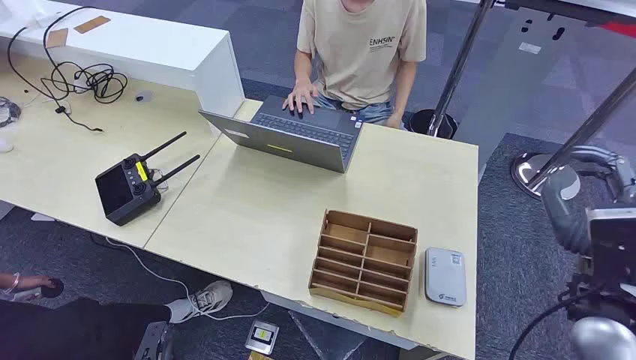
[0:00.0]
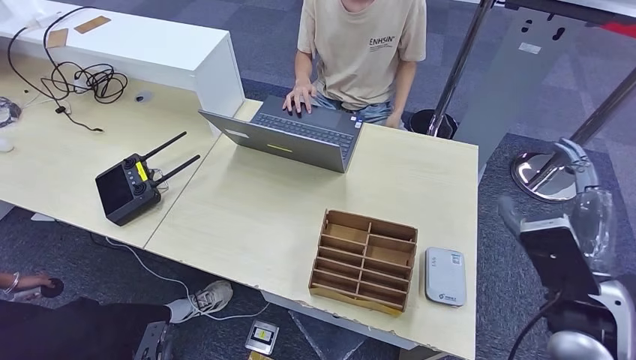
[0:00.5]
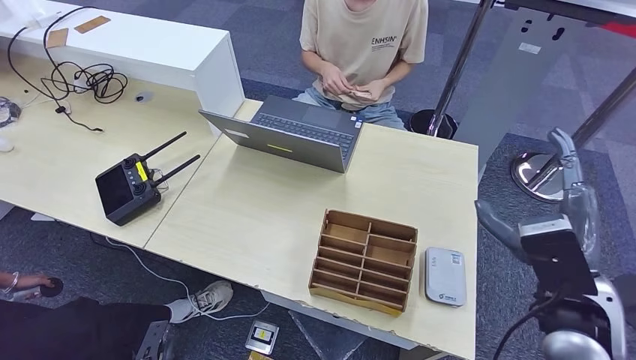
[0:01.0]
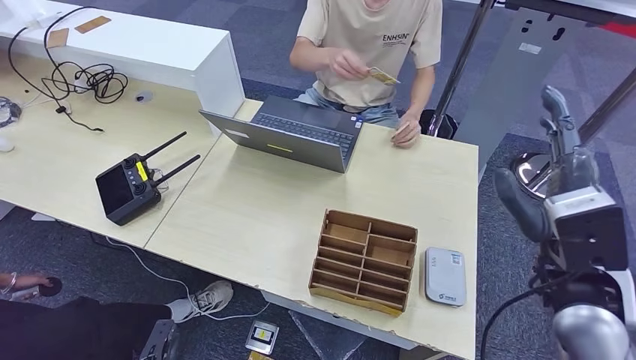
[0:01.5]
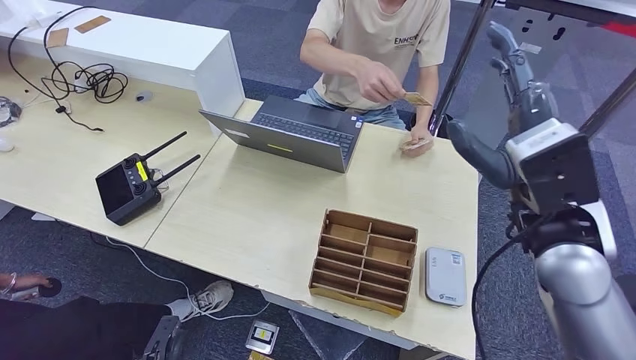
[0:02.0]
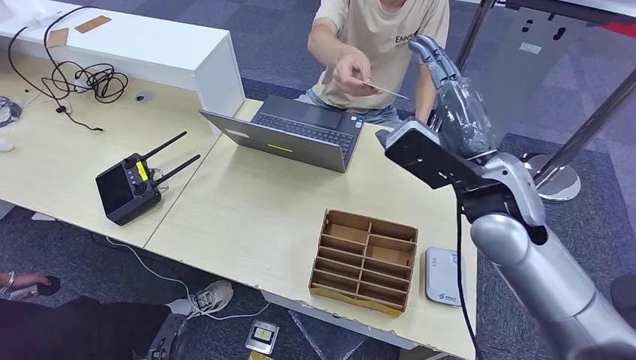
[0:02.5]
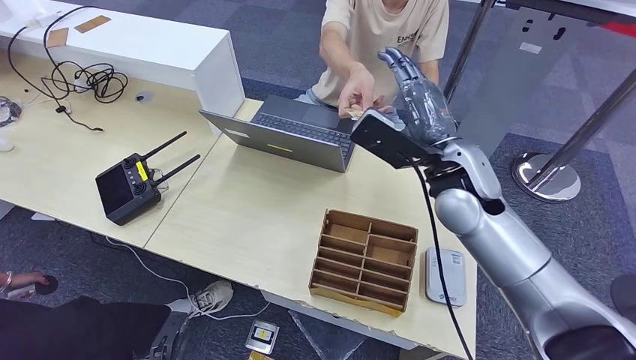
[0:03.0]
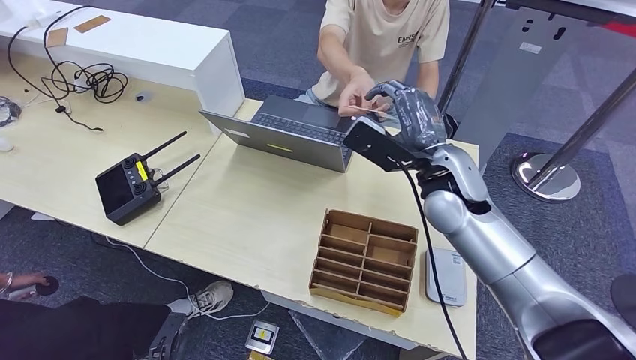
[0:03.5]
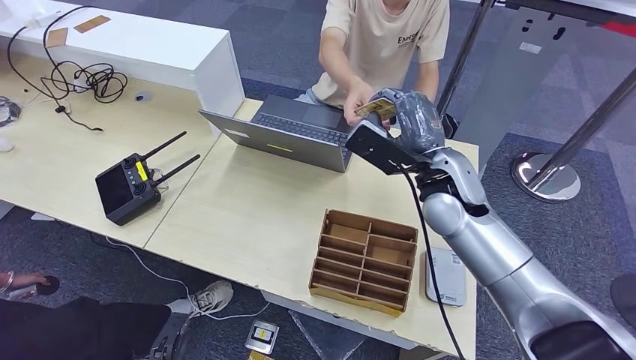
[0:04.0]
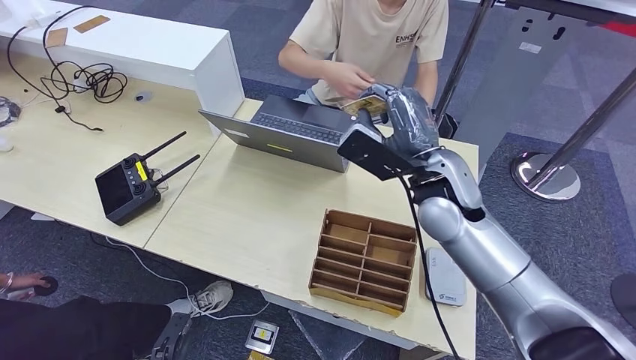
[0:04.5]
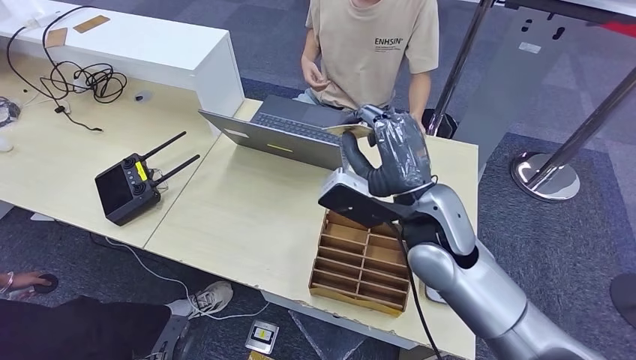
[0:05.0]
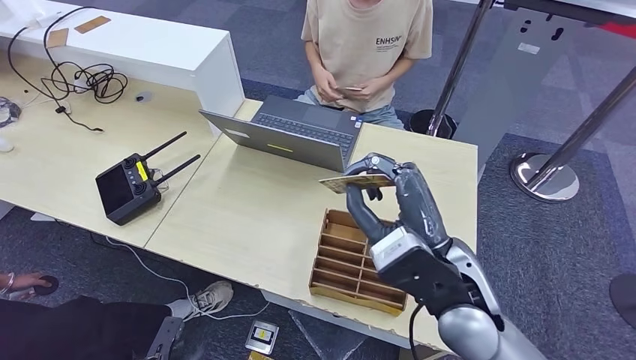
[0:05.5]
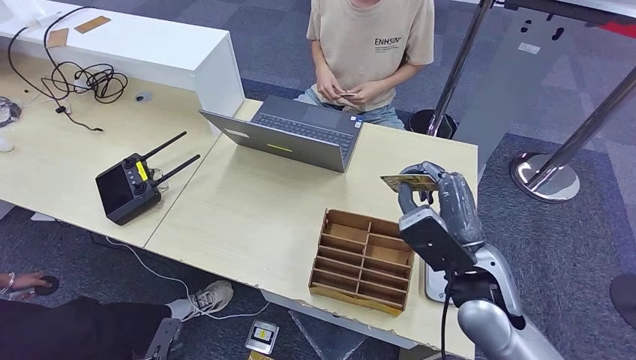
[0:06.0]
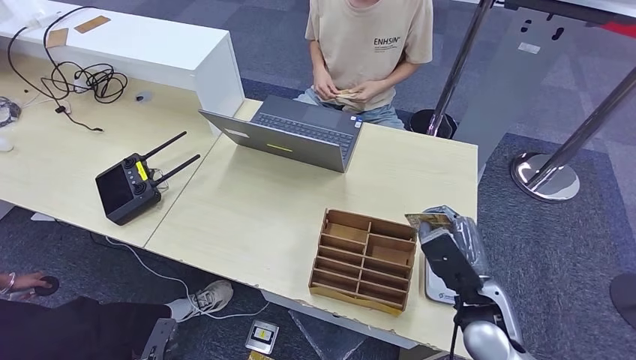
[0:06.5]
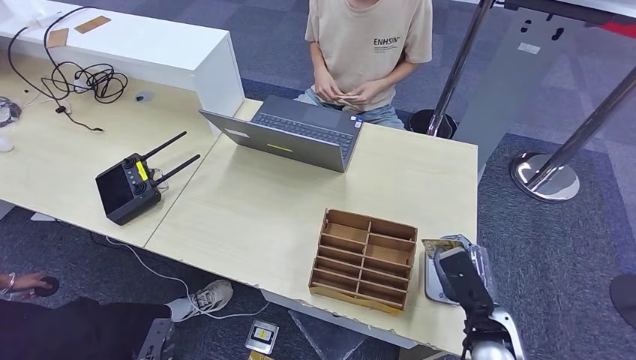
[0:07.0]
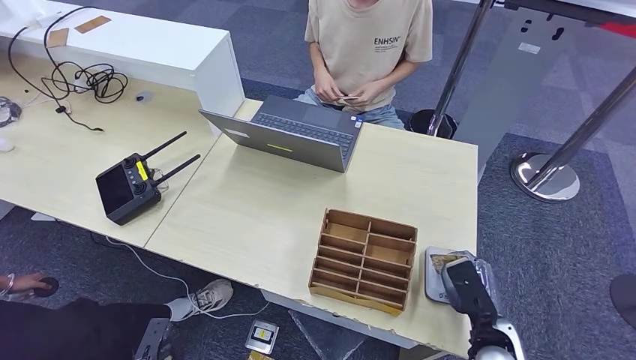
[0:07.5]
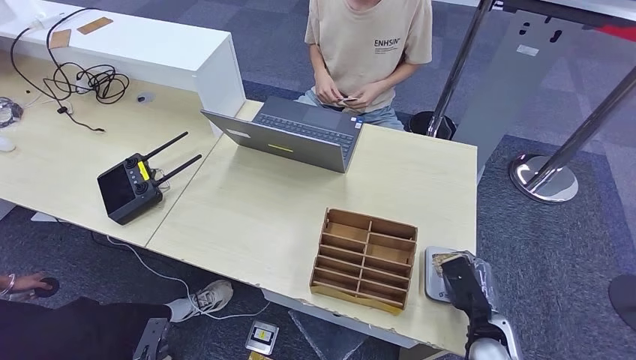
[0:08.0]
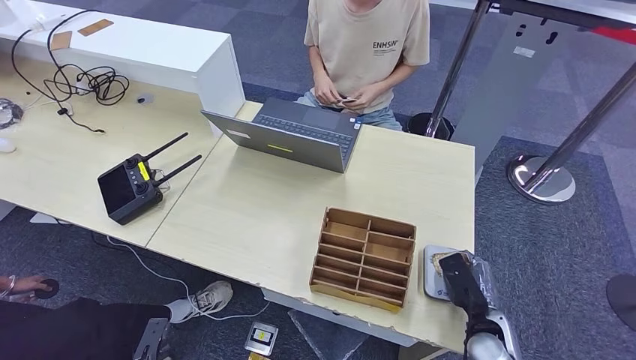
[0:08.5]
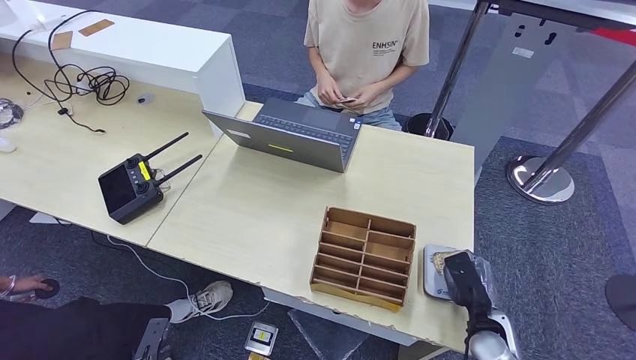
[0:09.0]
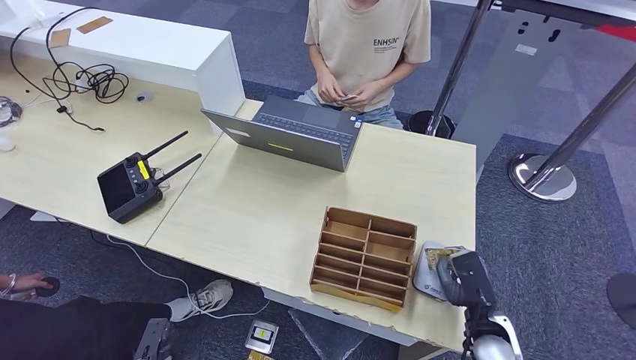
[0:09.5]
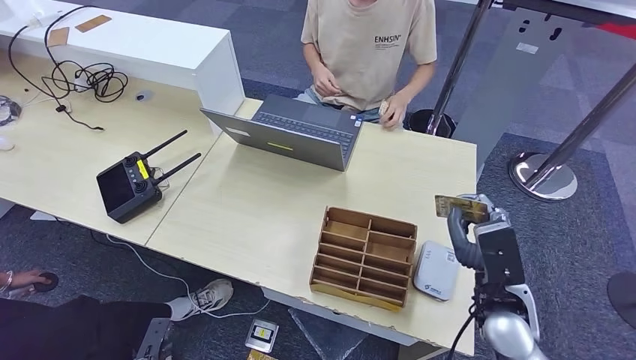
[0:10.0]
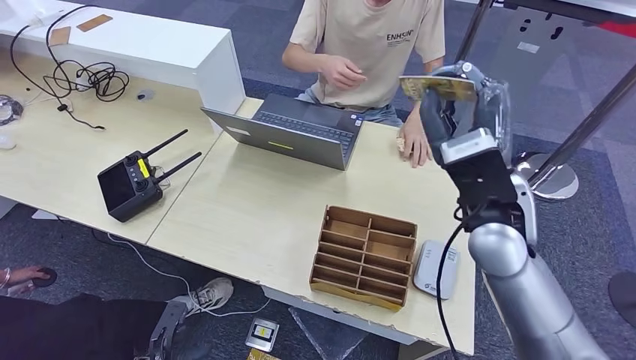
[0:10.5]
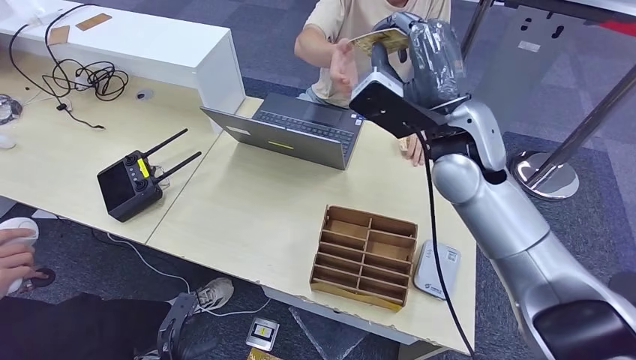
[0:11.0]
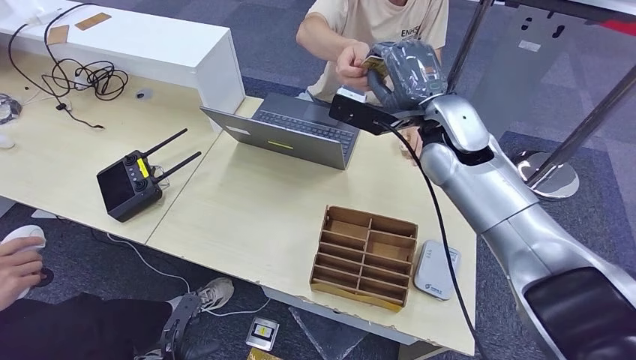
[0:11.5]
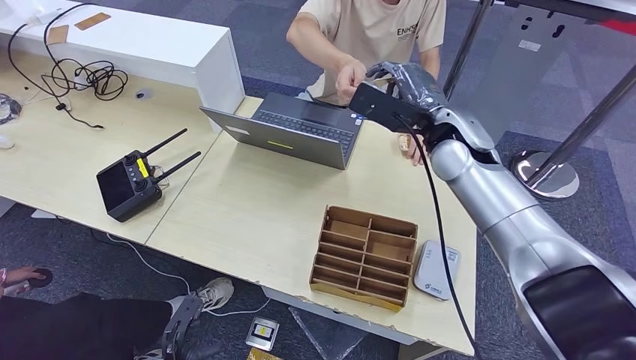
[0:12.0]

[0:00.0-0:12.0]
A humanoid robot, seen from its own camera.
Step, 0:00.0 to 0:04.5: Take the ID card from the person's hand.
Step, 0:05.0 to 0:08.5: Place the ID card on the card reader.
0:02.0 to 0:04.0: The right hand moves forward, to the left and downward, about 15 cm.
0:04.0 to 0:06.0: The right hand heads backward and downward, covering about 15 cm.
0:06.0 to 0:08.0: The right hand travels downward and to the right by roughly 25 cm.
0:08.0 to 0:10.0: The right hand moves upward, about 10 cm.

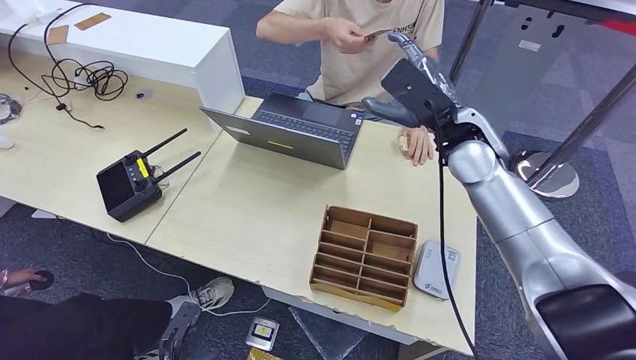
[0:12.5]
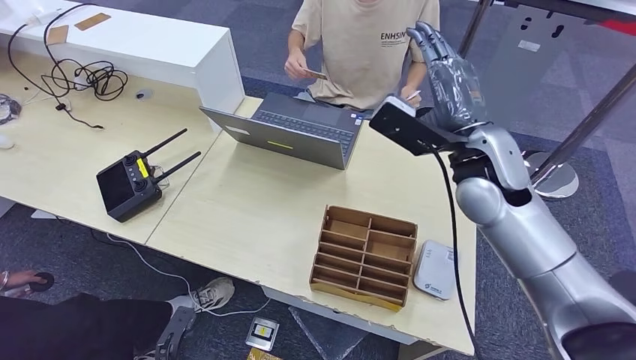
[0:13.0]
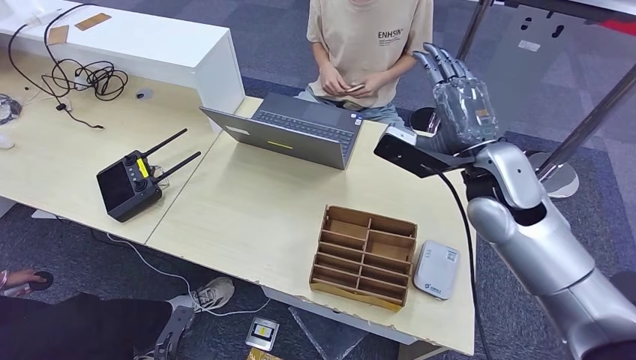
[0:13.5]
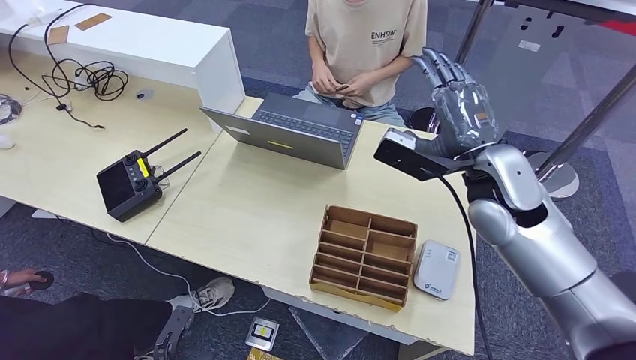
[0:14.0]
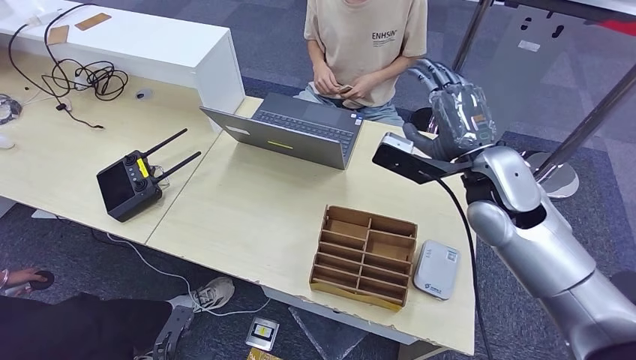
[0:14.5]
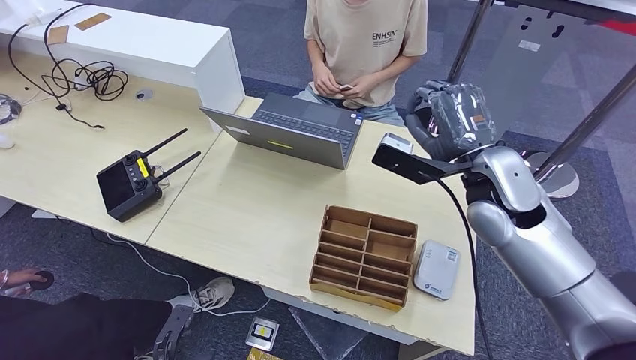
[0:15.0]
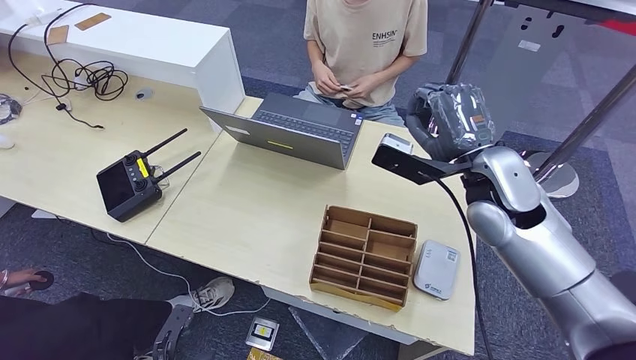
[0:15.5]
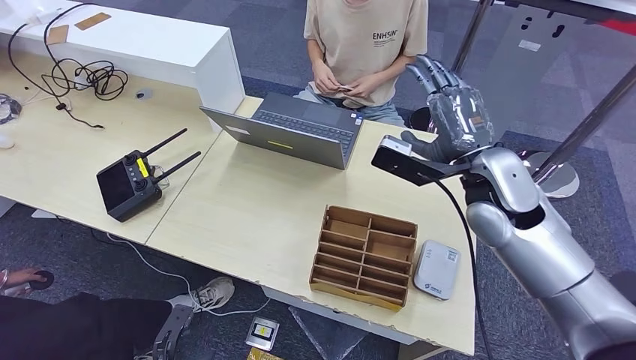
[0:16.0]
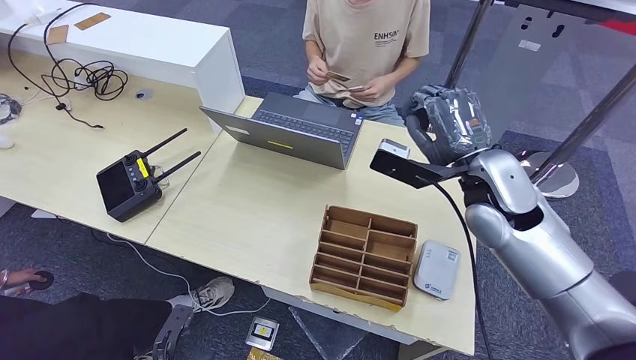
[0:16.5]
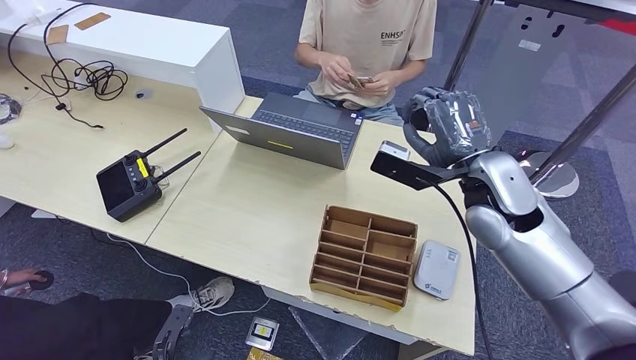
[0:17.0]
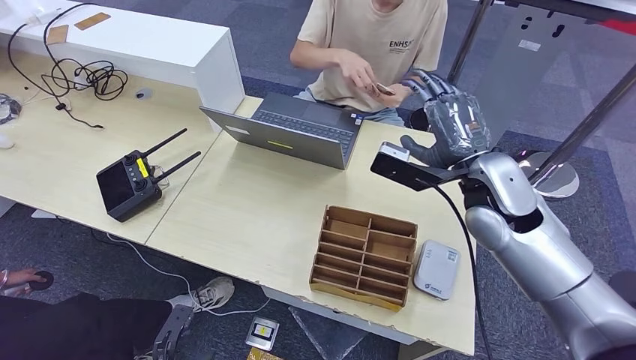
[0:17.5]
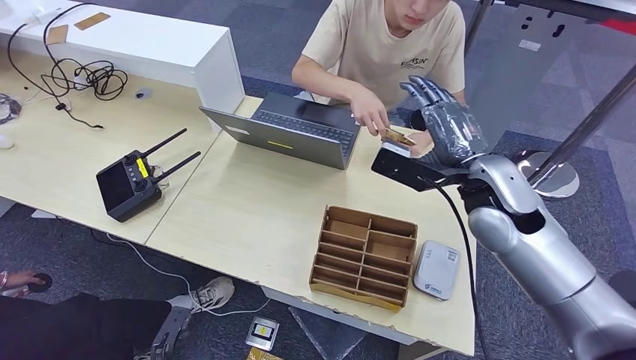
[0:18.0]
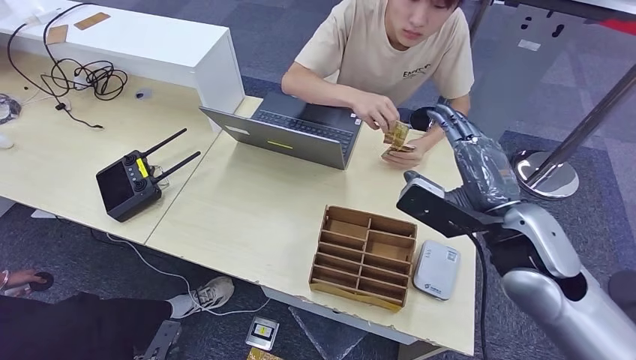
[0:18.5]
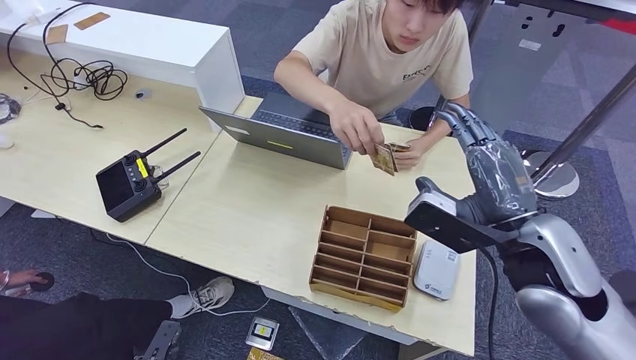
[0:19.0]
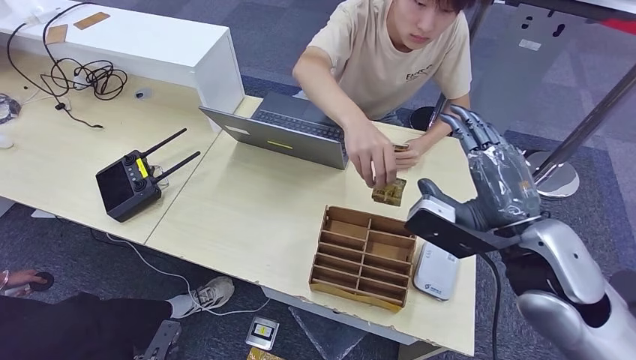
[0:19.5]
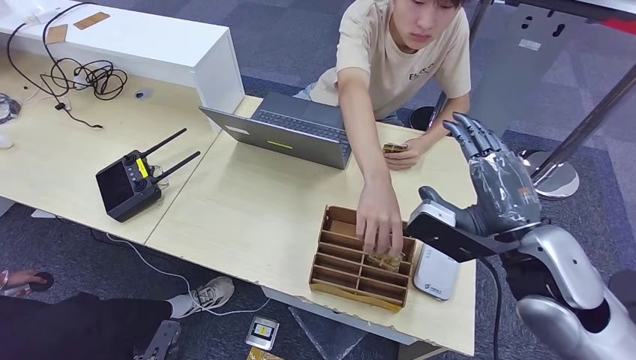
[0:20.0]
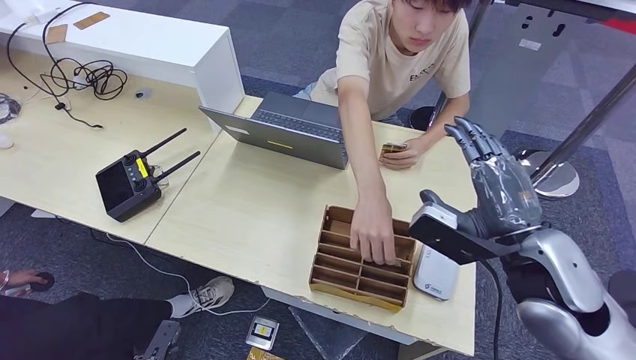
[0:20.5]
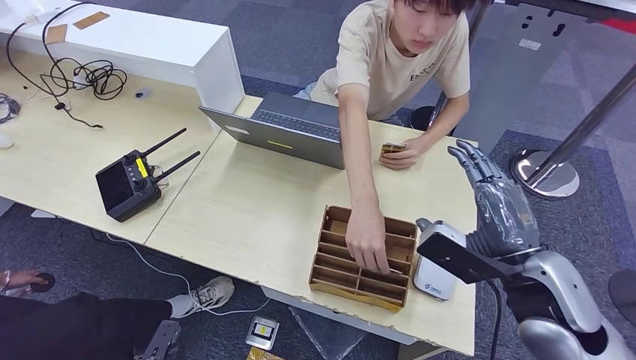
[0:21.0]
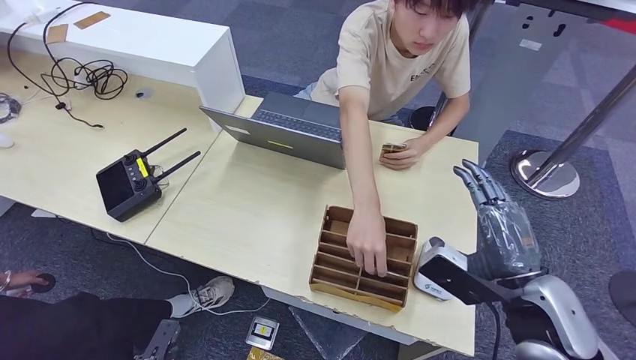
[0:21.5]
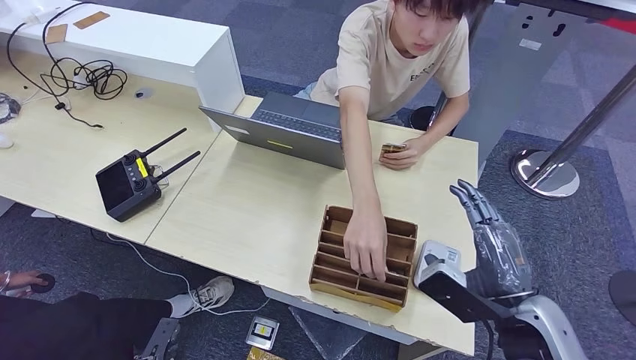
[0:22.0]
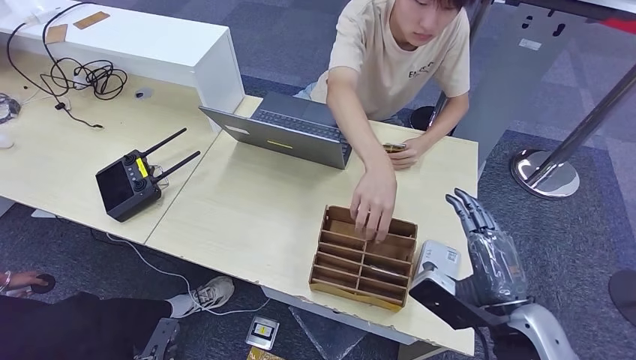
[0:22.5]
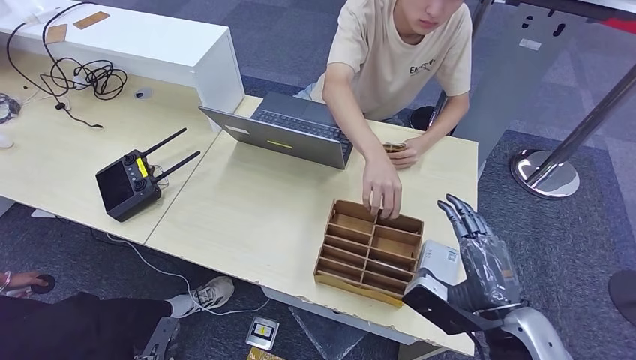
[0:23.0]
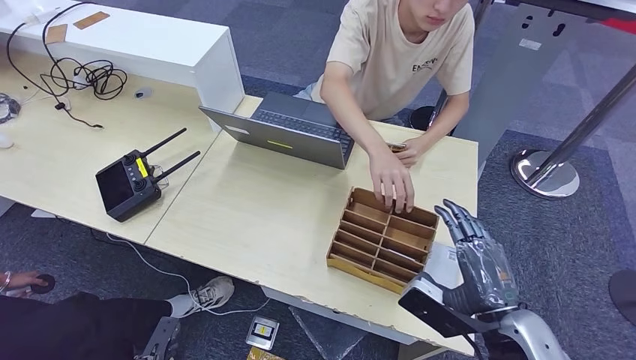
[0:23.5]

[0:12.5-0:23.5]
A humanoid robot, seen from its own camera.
0:12.5 to 0:14.5: The right hand goes roughly 5 cm backward.
0:14.5 to 0:16.0: Both hands stay put.
0:16.0 to 0:18.0: The hands make only small movements.
0:18.0 to 0:20.0: The right hand moves backward, about 10 cm.
0:20.0 to 0:21.5: The right hand goes roughly 5 cm downward.
0:21.5 to 0:23.5: The right hand shifts by some 5 cm.
